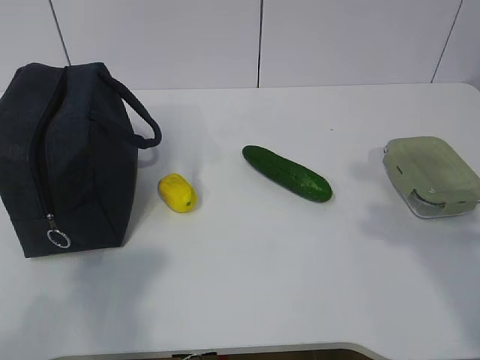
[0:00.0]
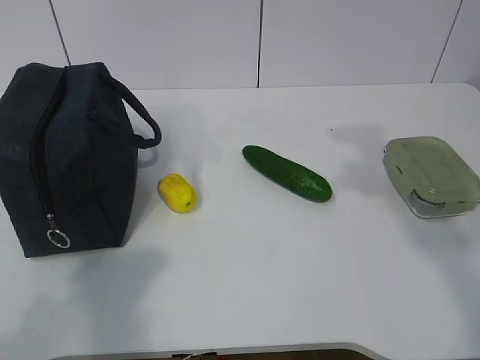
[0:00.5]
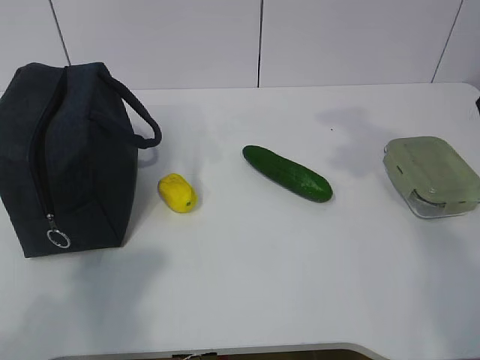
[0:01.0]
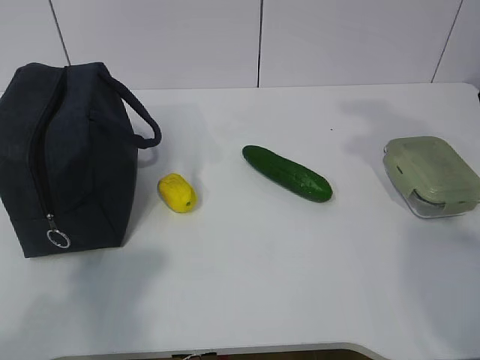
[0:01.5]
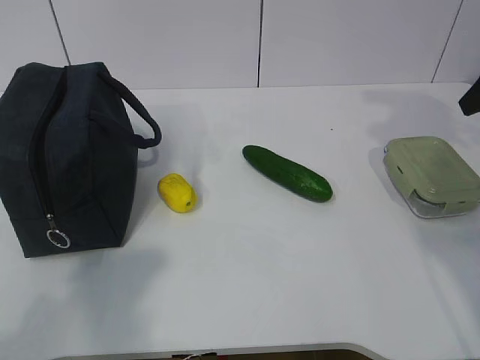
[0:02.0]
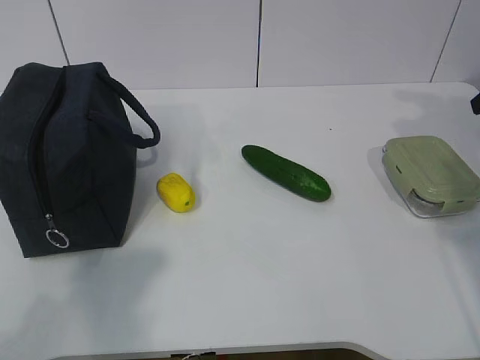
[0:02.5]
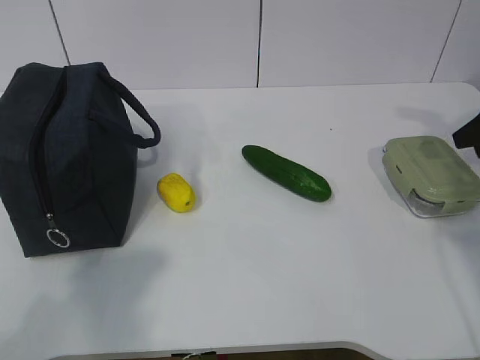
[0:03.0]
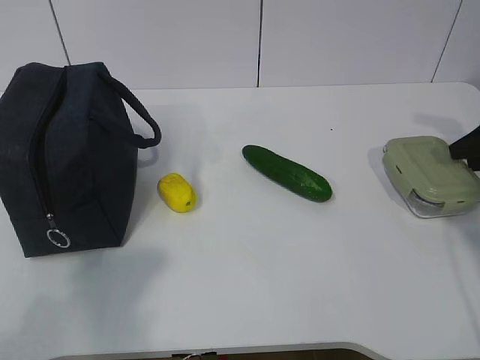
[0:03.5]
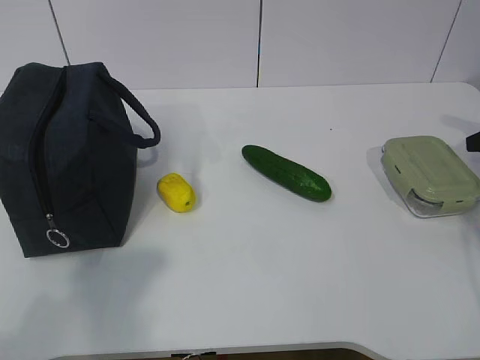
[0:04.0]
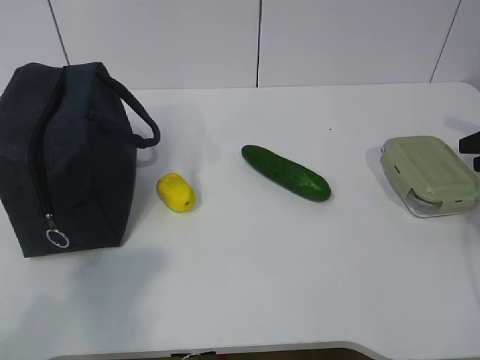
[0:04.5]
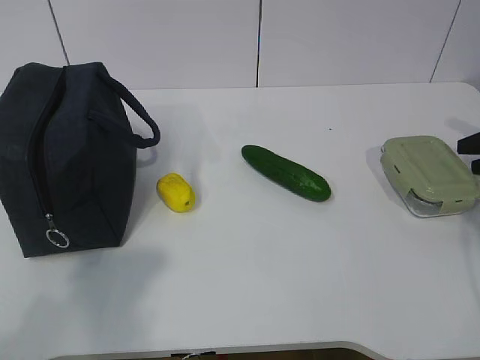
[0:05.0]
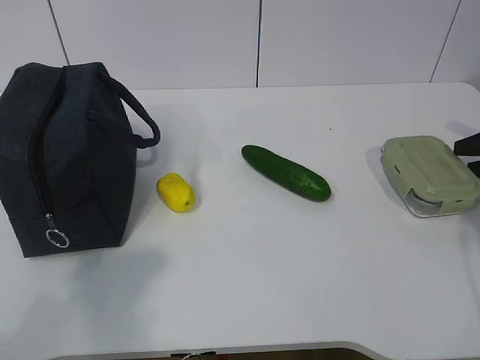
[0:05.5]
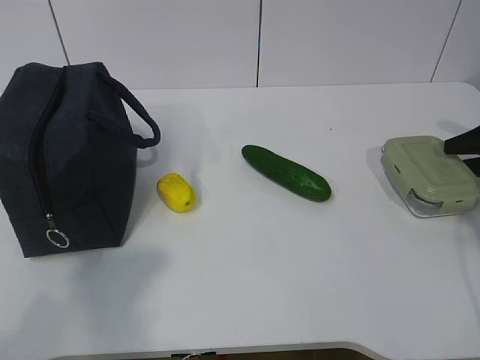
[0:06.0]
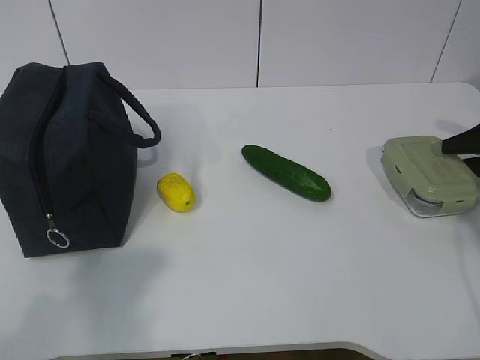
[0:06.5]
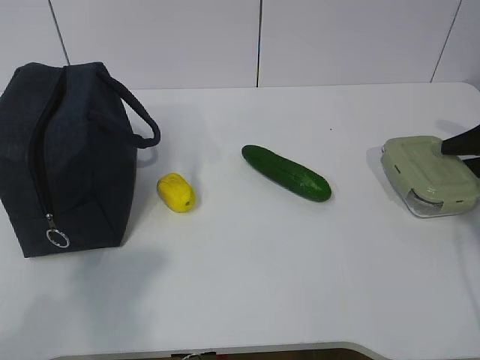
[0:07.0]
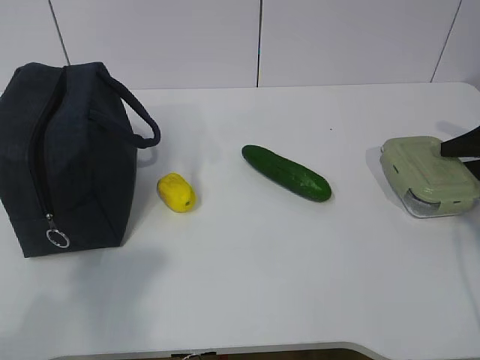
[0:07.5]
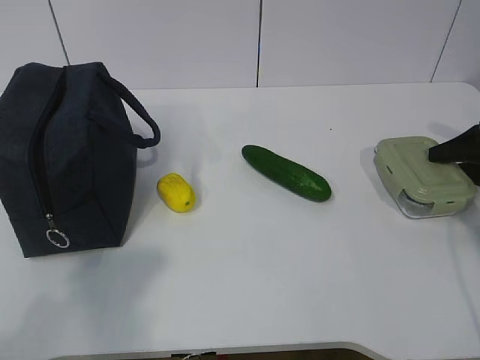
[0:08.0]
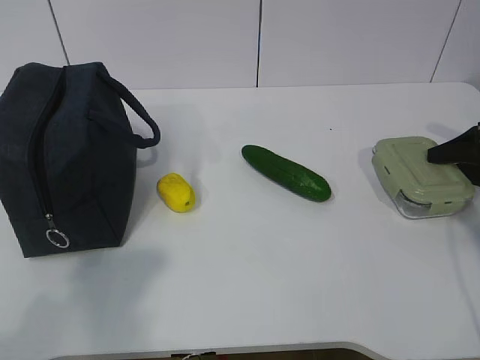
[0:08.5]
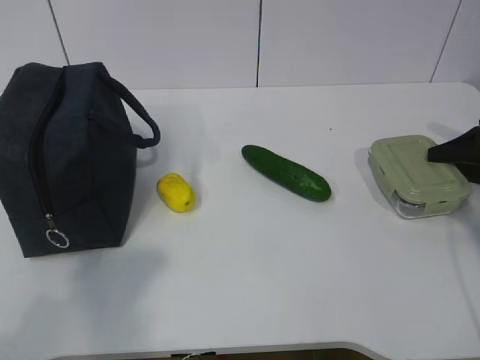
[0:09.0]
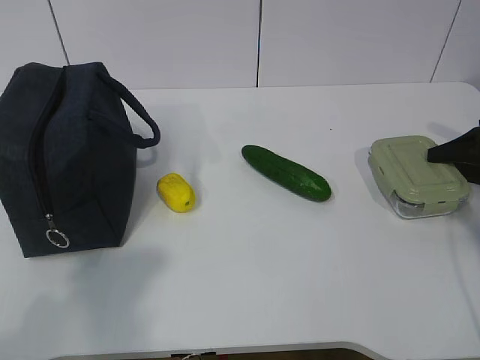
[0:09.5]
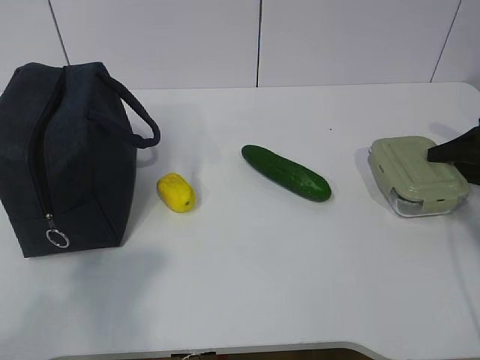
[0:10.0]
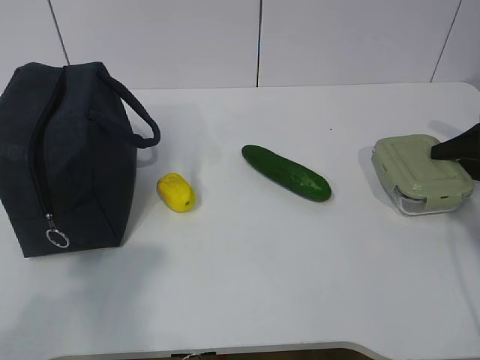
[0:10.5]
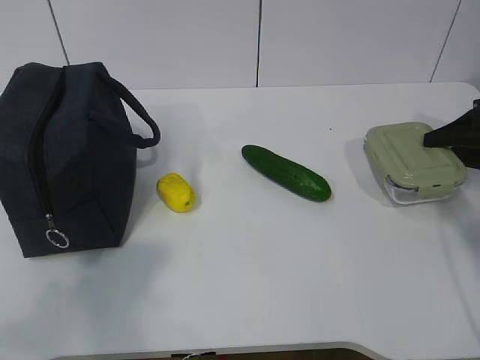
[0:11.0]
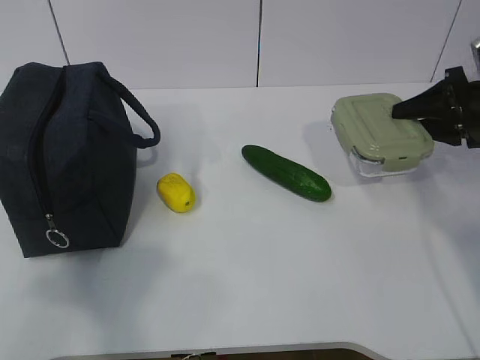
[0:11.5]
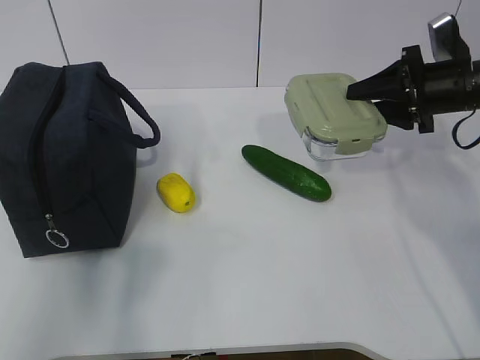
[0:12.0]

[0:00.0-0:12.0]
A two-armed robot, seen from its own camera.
Step, 0:00.0 to 0:07.5: Grab the lunch box with your right hand.
0:02.0 to 0:04.0: The right gripper heads downward and to the right, covering approximately 15 cm.
0:06.0 to 0:08.0: The grippers make only small movements.
0:08.0 to 0:10.0: The two grippers keep their place.
0:10.0 to 0:12.0: The left gripper heads forward and upward, covering about 10 cm, while the right gripper goes about 15 cm to the left and upward.

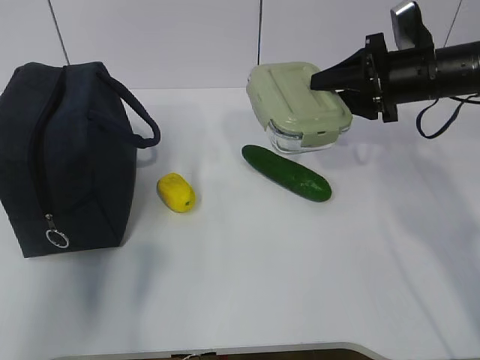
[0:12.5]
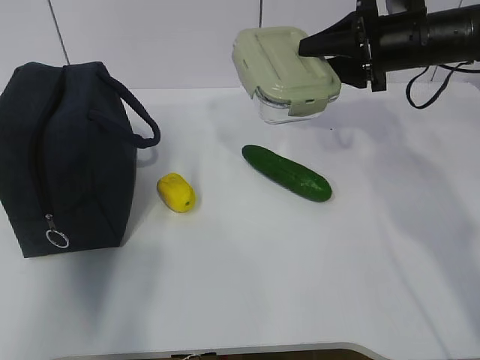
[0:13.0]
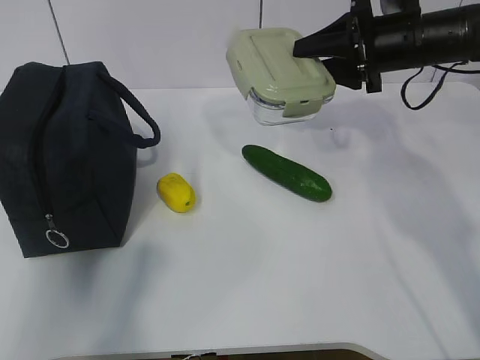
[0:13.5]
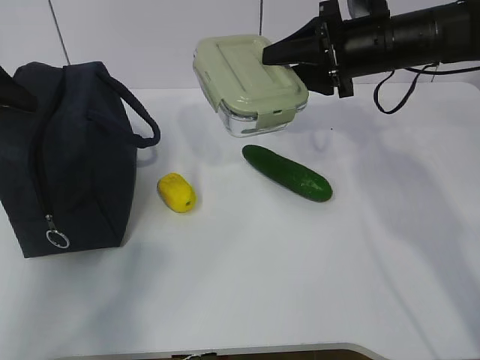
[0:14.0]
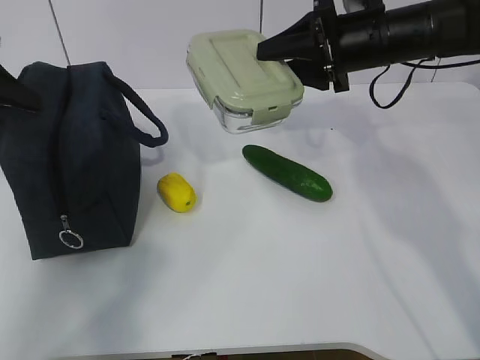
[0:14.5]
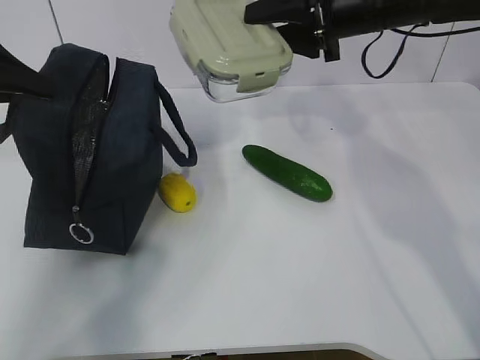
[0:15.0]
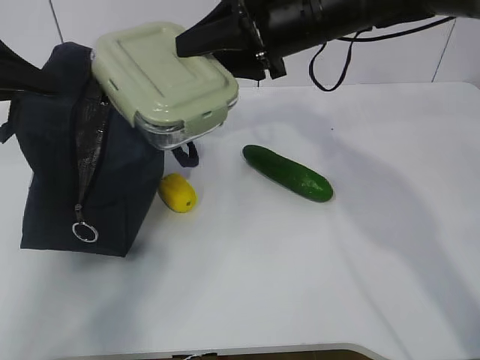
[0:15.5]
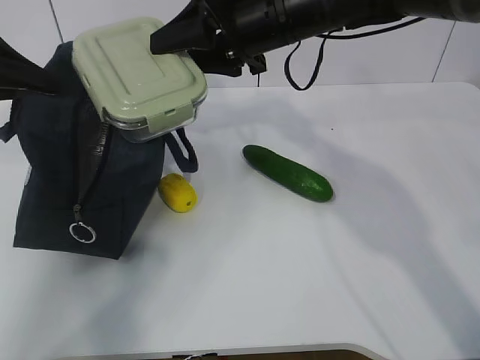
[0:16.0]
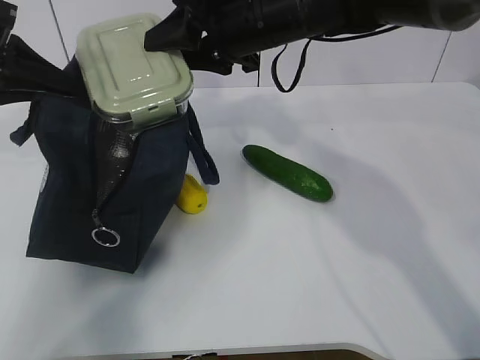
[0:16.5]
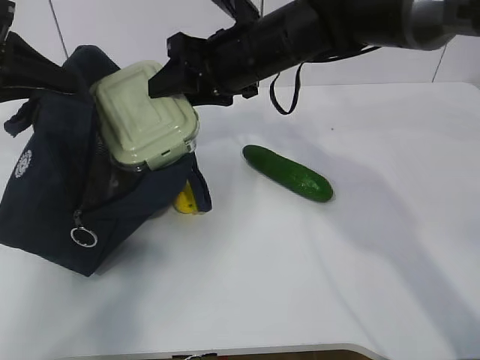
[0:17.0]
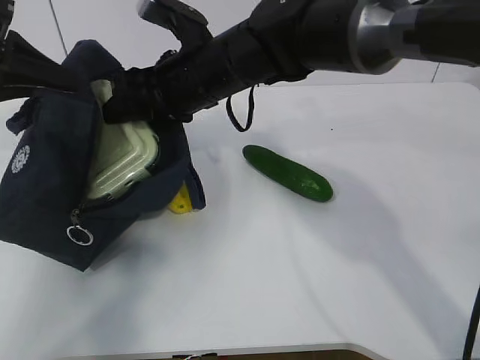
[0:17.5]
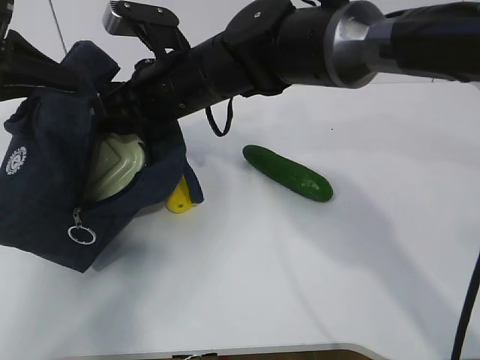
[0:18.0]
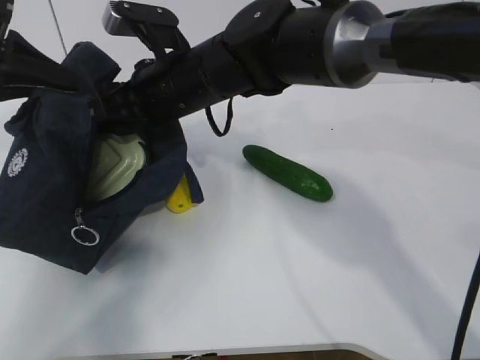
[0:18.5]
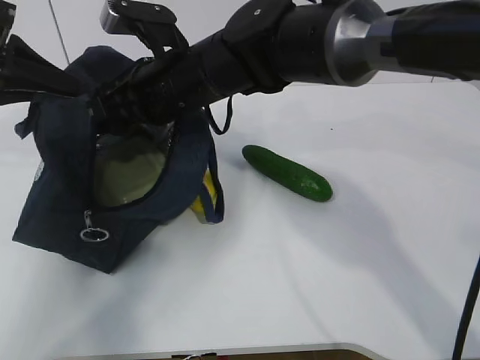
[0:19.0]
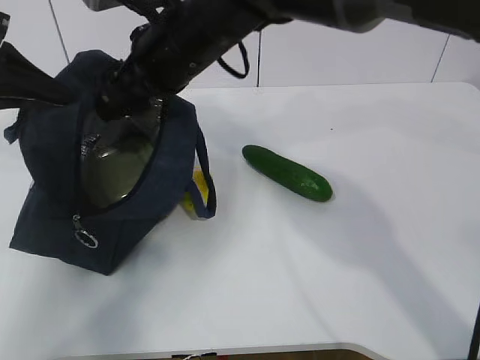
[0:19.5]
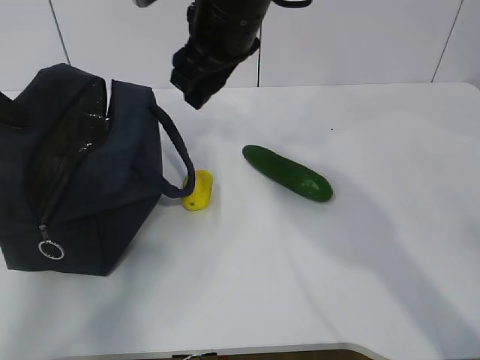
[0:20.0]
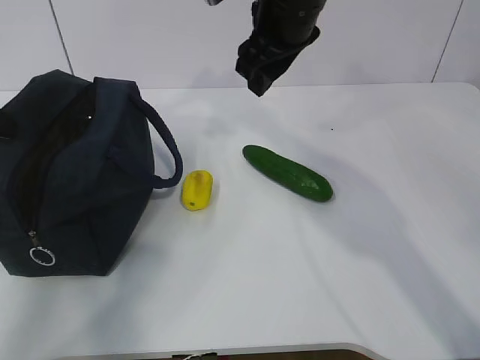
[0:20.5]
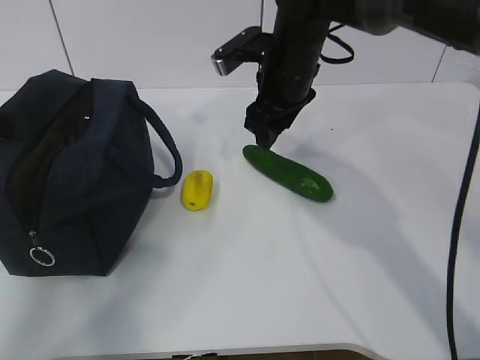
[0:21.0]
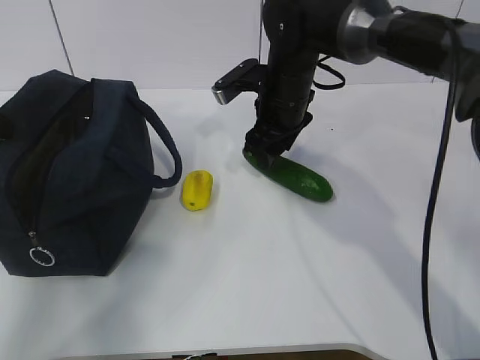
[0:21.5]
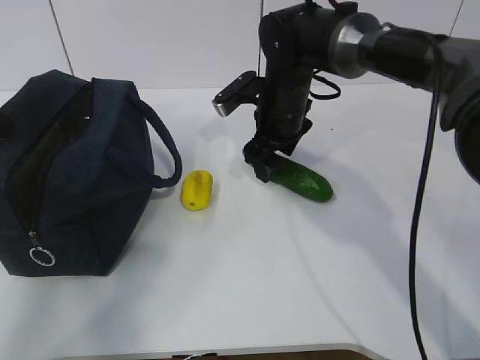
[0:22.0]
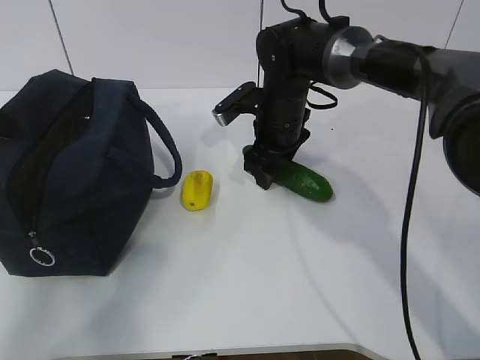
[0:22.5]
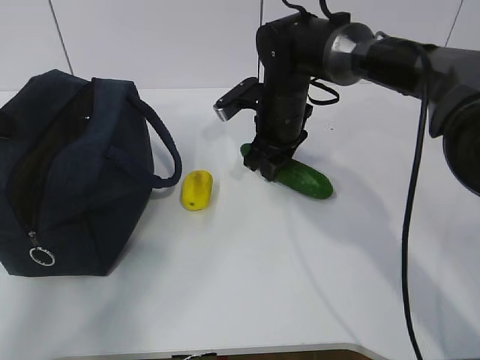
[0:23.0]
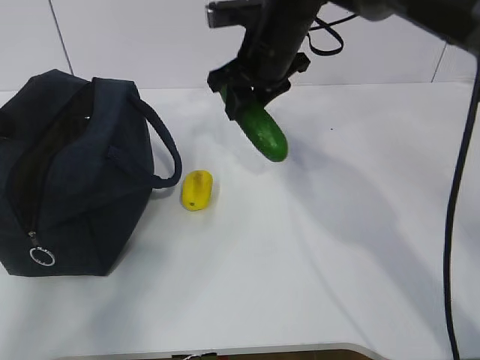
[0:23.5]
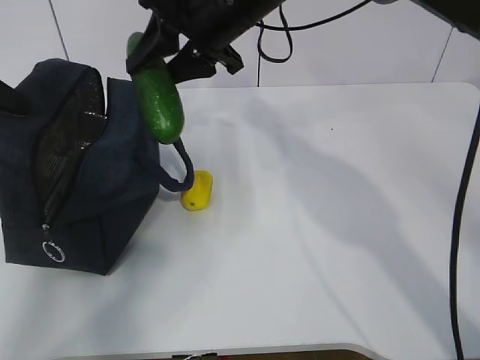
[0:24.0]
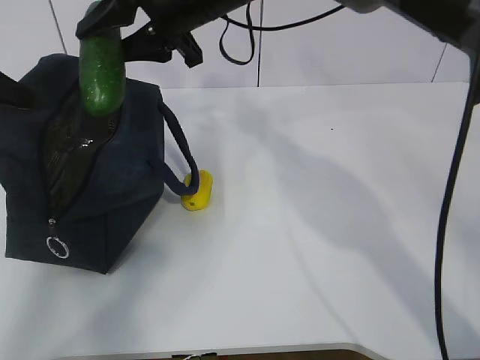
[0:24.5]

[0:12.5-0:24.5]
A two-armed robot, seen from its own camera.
Step, 0:13.0 to 0:15.0: Place it into the bag with your right hand.
Step, 0:15.5 to 0:18.0: Grab the cucumber with your right hand.
Step, 0:18.5 to 0:20.5: Place it into the bag with your right hand.
0:12.5 to 0:14.5: The right gripper goes some 5 cm to the left, while the left gripper shifts some 20 cm forward.
0:14.5 to 0:16.5: The right gripper shifts about 15 cm to the left; the left gripper closes.
0:16.5 to 0:18.5: The right gripper is displaced to the left and downward by roughly 10 cm.
0:18.5 to 0:20.5: The left gripper moves to the left, roughly 5 cm. Meanwhile the right gripper heads to the right and upward, covering some 15 cm.
0:20.5 to 0:22.5: The right gripper travels downward by roughly 15 cm.
0:22.5 to 0:24.5: The right gripper shifts some 20 cm upward and to the left, and closes its fingers.

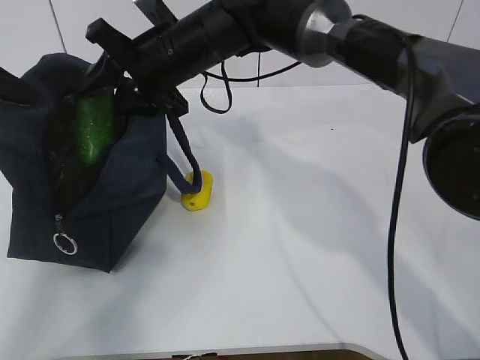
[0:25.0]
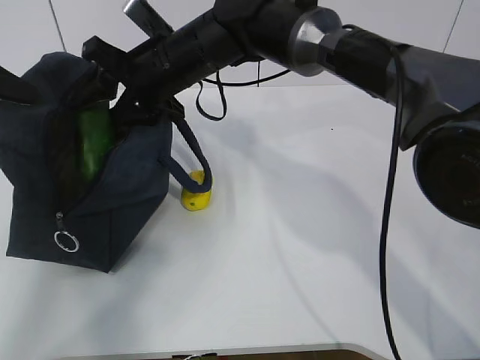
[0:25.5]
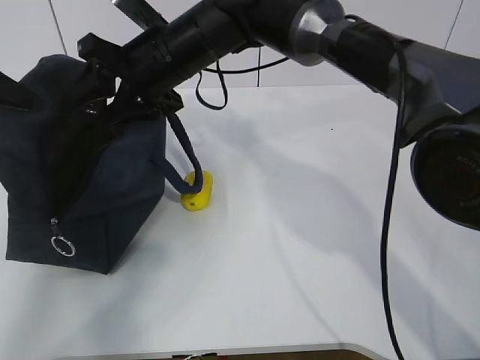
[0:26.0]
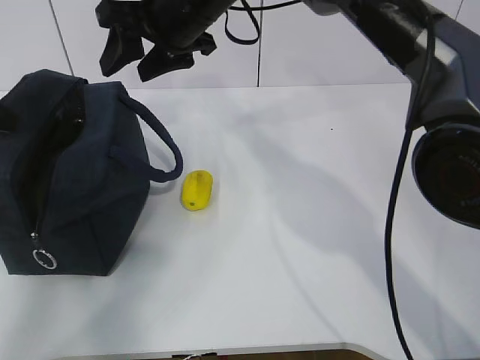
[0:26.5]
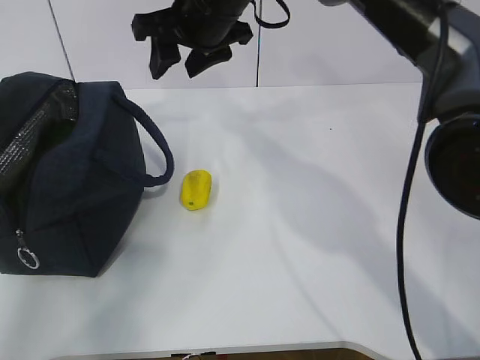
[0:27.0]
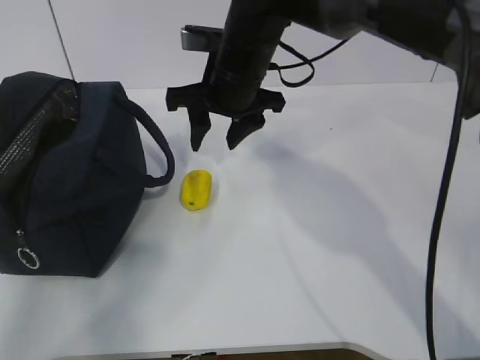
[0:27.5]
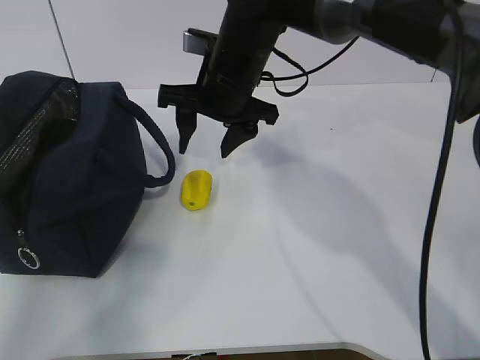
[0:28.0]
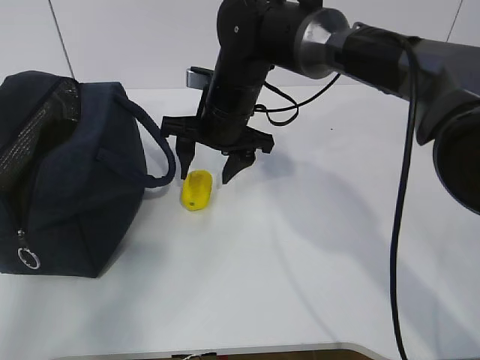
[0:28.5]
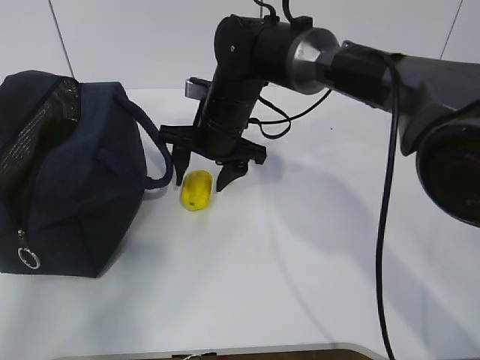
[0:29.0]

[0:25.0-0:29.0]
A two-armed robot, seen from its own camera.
Step, 0:25.0 to 0:27.0: Secure the lunch bag with your left hand.
0:25.0 to 0:27.0: The right gripper moves upward, approximately 5 cm.
0:27.0 to 0:29.0: The right gripper goes about 15 cm downward.
